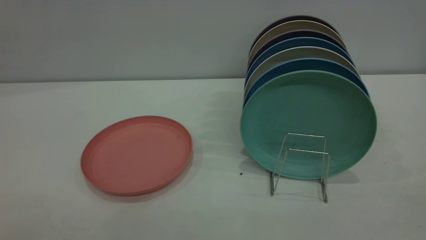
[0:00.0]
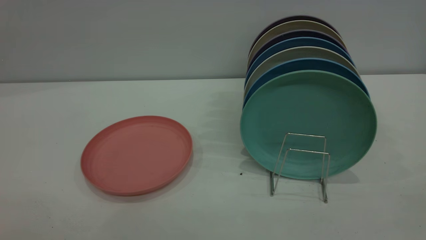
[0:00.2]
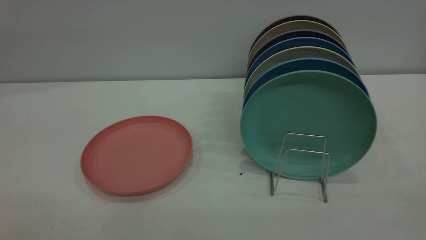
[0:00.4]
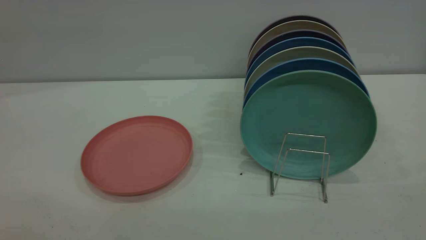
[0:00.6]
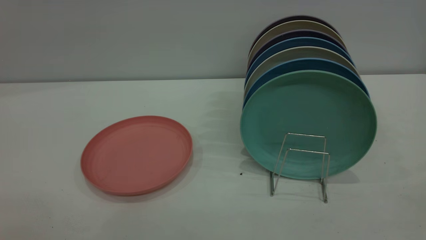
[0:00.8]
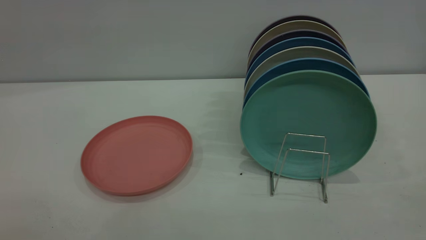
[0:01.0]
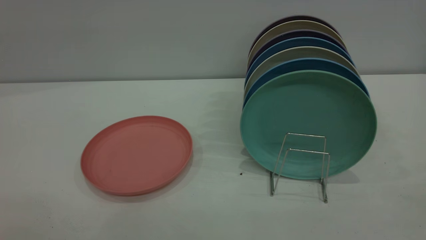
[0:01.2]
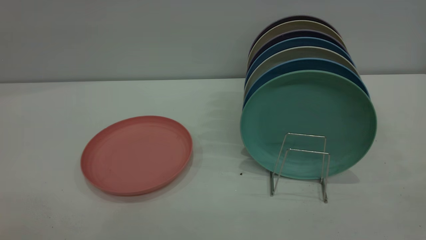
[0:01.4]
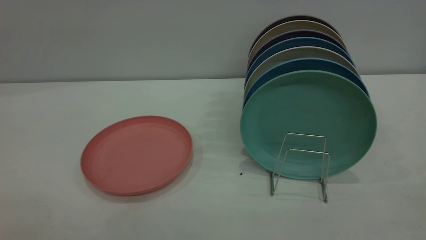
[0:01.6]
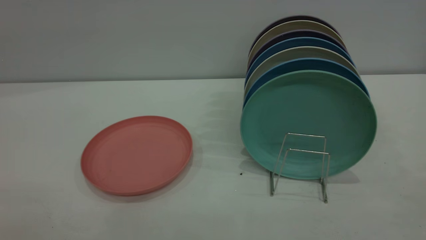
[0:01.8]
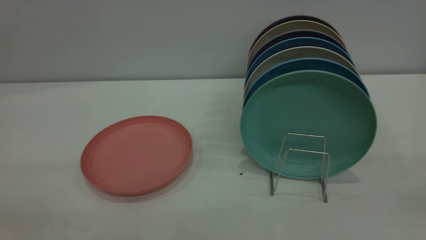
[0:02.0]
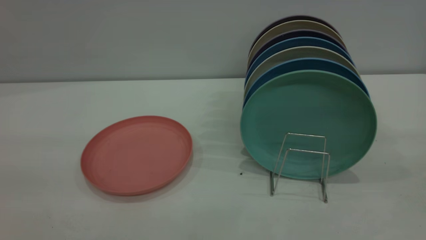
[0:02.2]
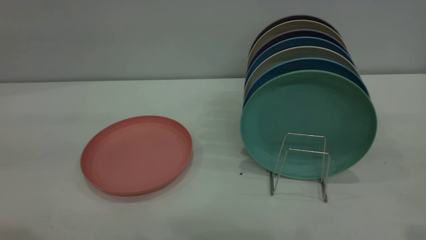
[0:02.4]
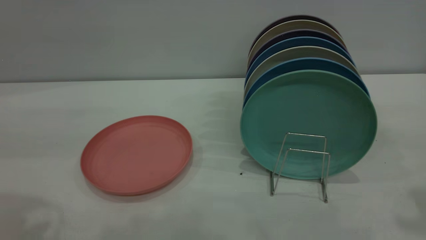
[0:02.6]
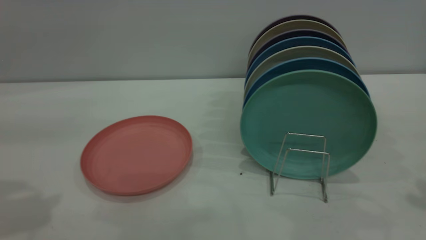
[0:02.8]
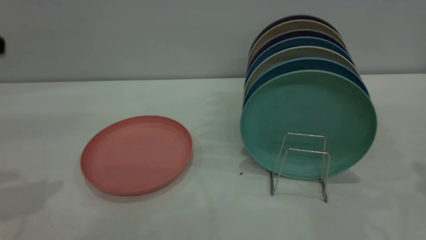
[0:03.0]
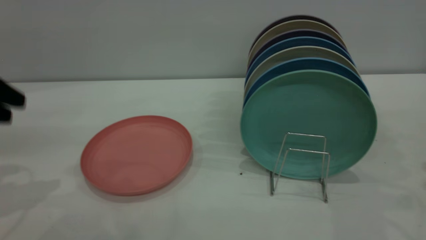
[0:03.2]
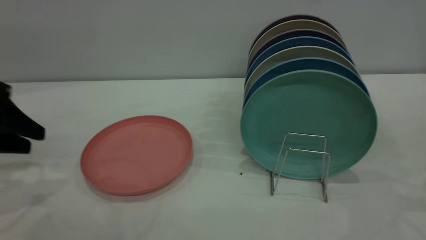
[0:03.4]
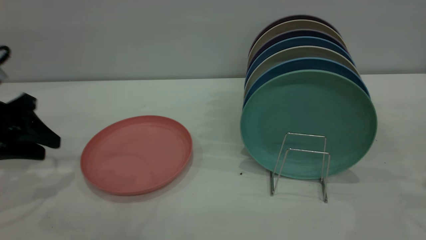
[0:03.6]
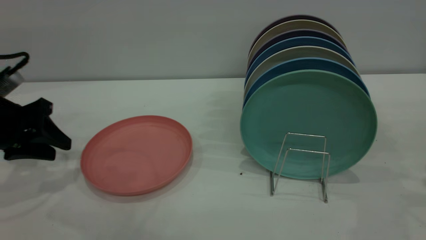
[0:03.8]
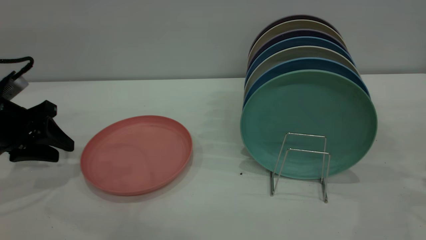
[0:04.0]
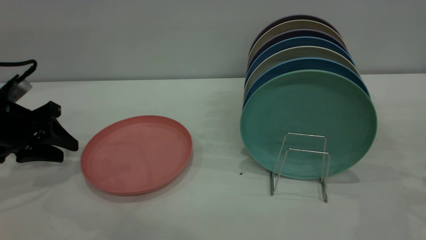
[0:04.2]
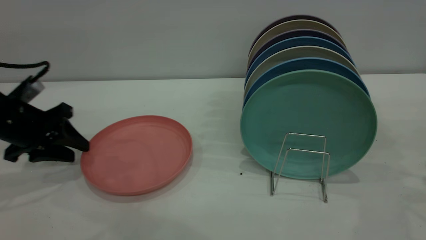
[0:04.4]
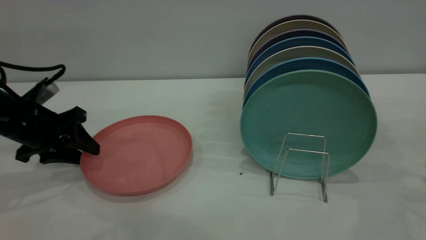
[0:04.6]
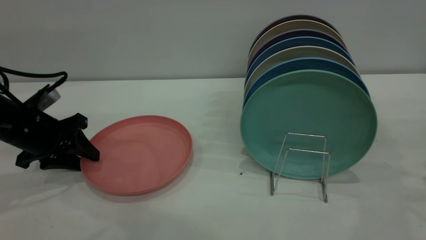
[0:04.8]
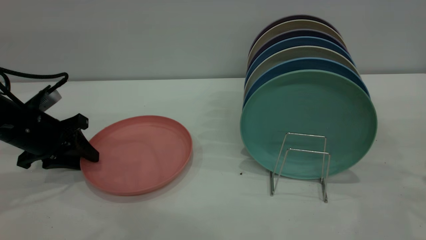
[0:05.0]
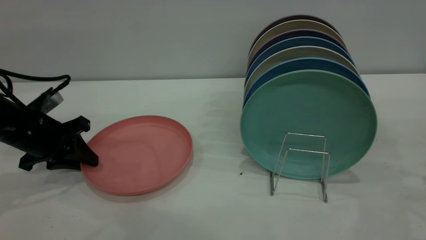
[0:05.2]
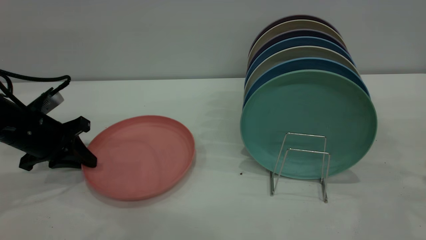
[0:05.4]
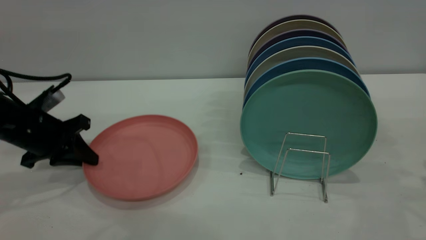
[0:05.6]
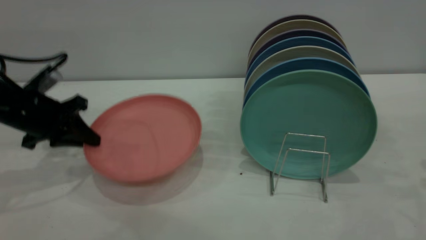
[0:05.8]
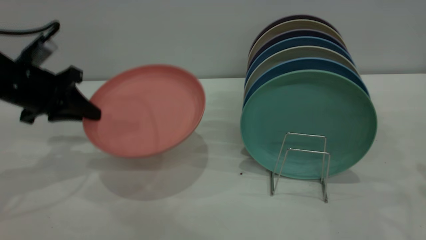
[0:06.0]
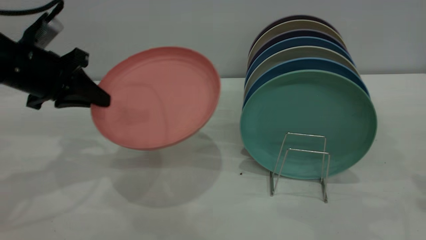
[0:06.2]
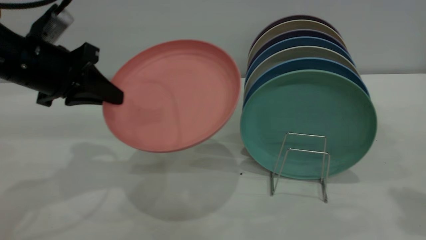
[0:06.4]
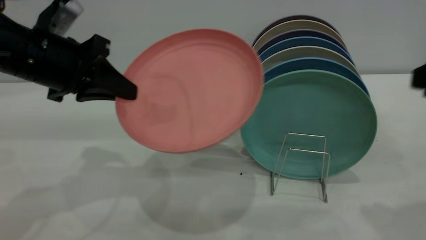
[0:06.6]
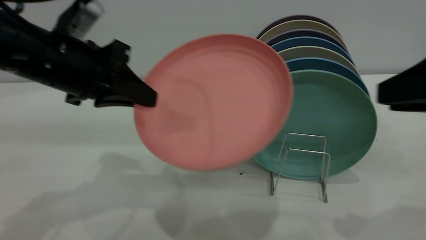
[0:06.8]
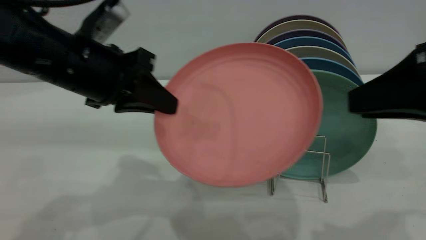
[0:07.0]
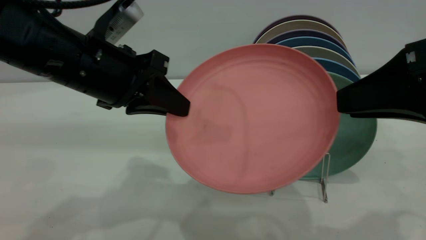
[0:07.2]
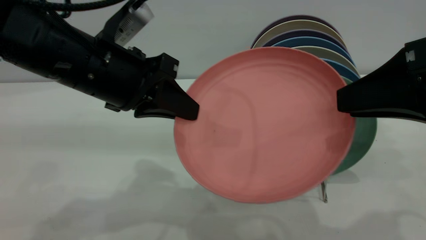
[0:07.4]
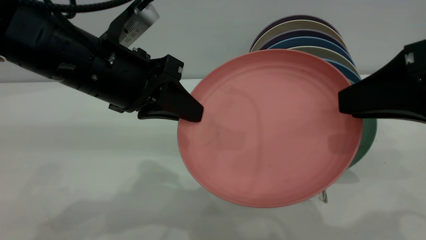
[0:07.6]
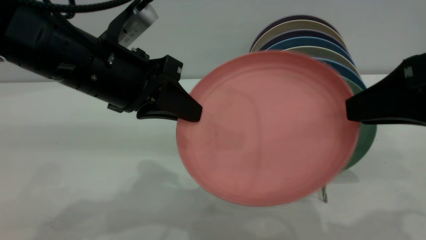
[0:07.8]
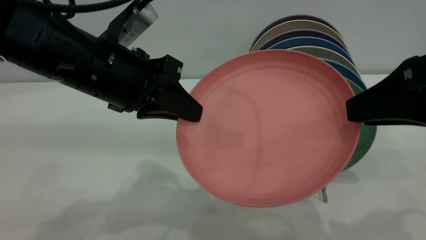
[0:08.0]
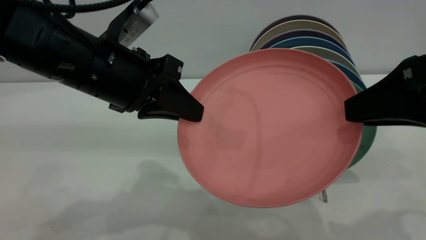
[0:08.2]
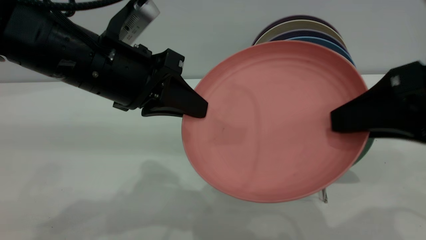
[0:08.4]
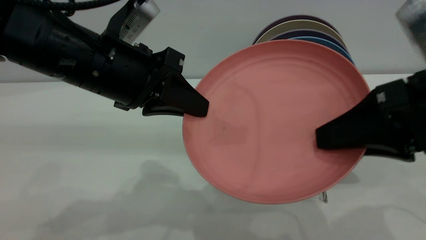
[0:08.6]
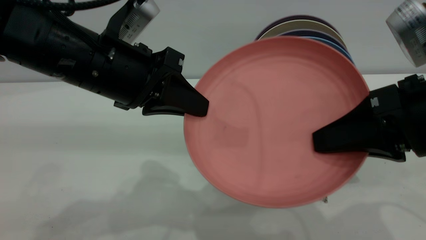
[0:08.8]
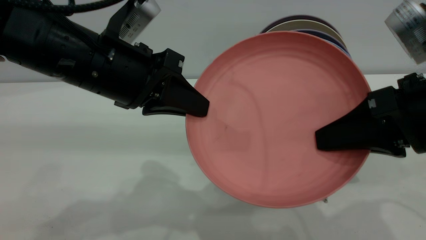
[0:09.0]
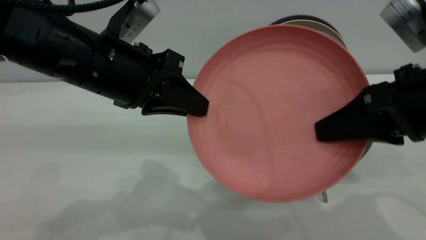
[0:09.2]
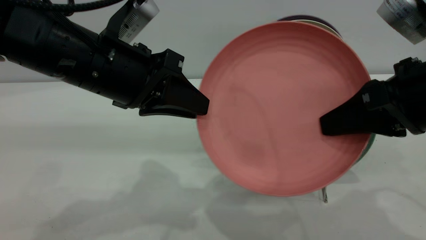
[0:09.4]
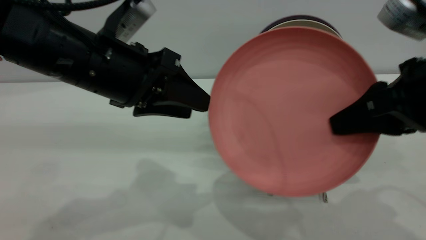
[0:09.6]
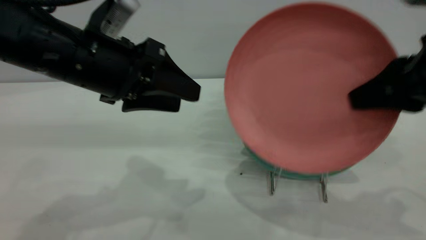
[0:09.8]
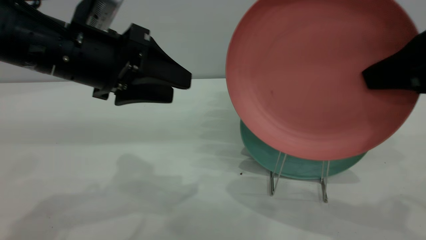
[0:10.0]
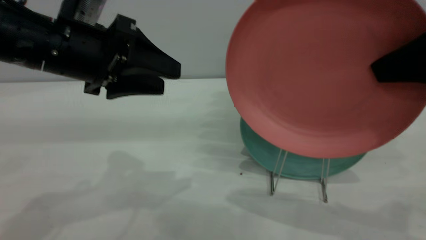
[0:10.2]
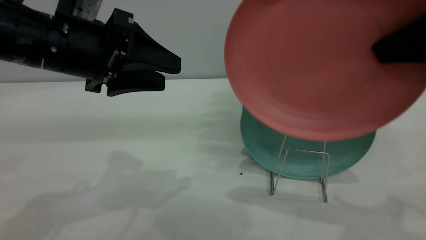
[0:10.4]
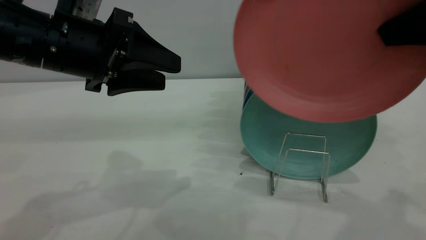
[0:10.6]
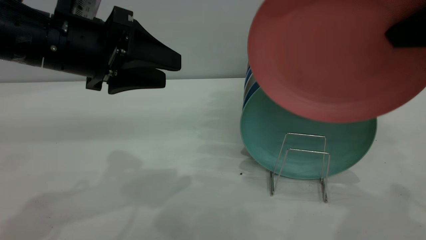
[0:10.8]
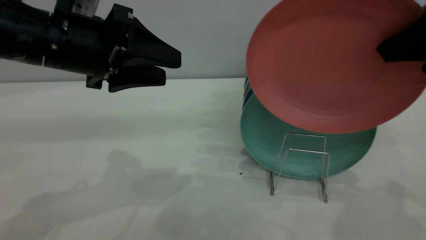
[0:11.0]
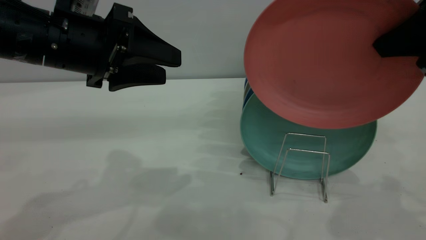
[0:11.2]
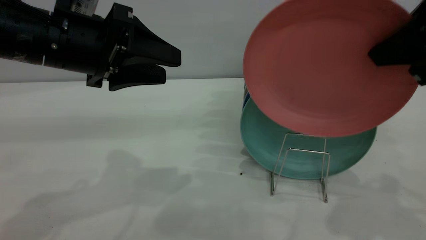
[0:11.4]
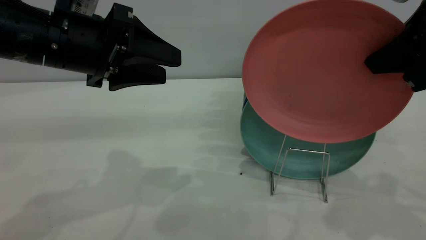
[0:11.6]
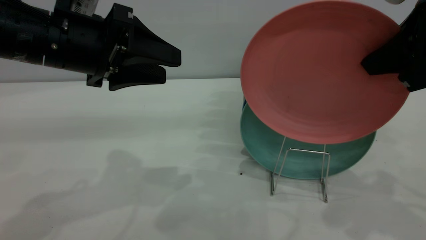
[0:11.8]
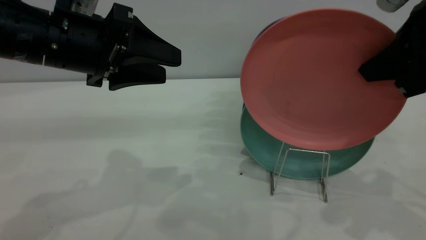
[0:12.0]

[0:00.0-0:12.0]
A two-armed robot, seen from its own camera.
Task of the whole recording: put the plate on the plate rack.
Step, 0:00.0 to 0:06.0: Pick up the plate with the left gripper.
Step, 0:06.2 to 0:09.6: Pass the plate from the left gripper to the right gripper.
0:00.0 to 0:01.6: Both grippers stay about where they are.
0:03.0 to 0:04.4: The left gripper goes approximately 20 cm downward and forward.
0:04.4 to 0:06.0: The left gripper goes some 5 cm upward, and closes its fingers. Meanwhile the right gripper shifts by roughly 5 cm.
0:06.0 to 0:07.6: The left gripper heads to the right and backward, covering roughly 20 cm. The right gripper heads to the left and backward, covering about 20 cm.
0:07.6 to 0:09.0: The right gripper ends up some 5 cm from where it was, and closes up.
0:09.0 to 0:10.4: The left gripper ends up some 5 cm from where it was, and opens. Meanwhile the right gripper shifts roughly 10 cm upward.
0:10.4 to 0:12.0: The right gripper goes approximately 5 cm forward.

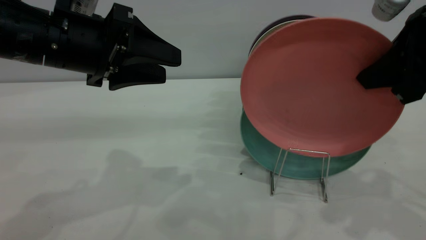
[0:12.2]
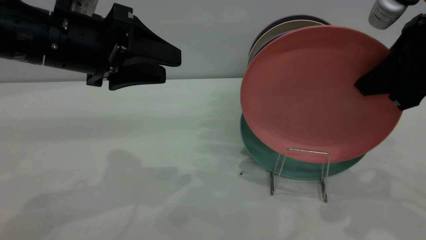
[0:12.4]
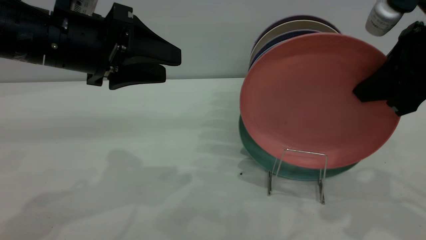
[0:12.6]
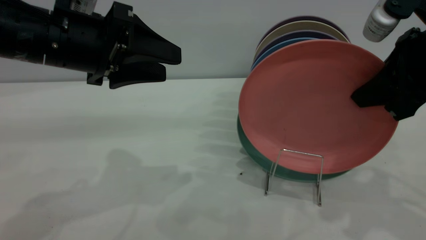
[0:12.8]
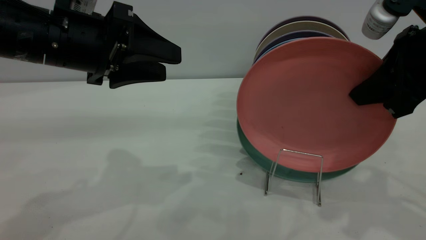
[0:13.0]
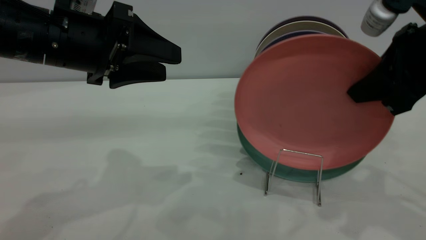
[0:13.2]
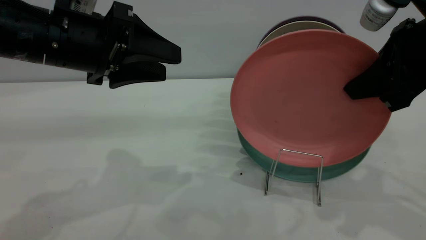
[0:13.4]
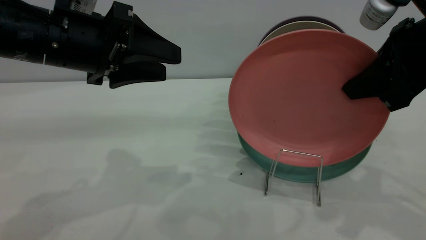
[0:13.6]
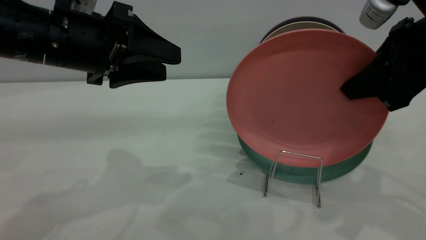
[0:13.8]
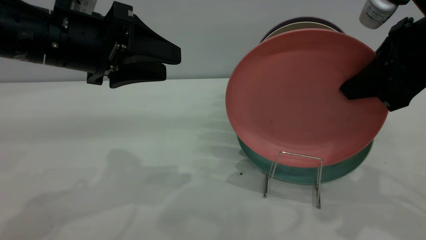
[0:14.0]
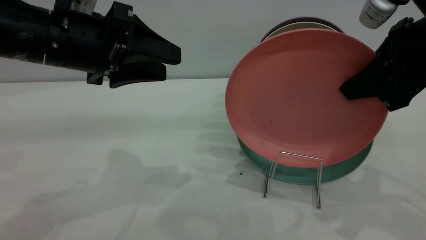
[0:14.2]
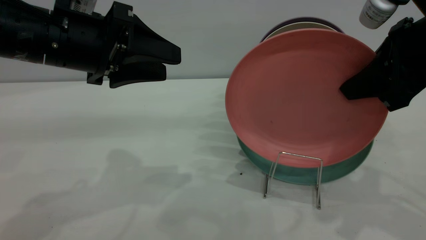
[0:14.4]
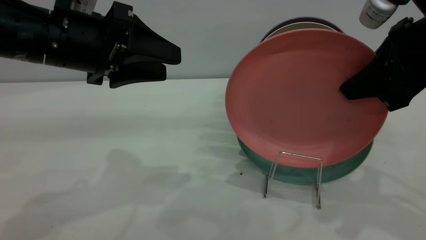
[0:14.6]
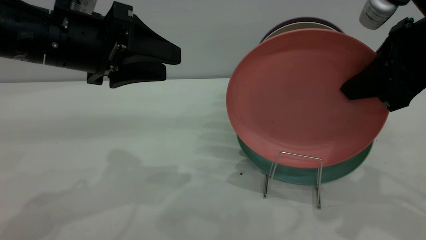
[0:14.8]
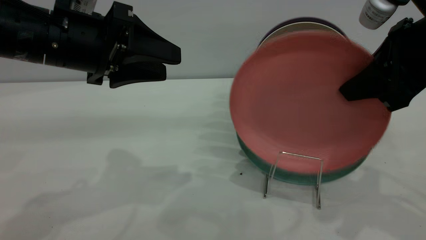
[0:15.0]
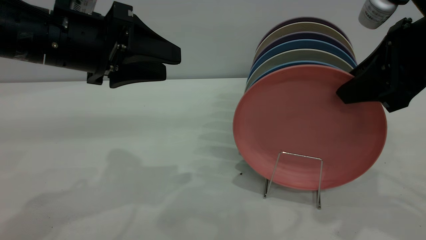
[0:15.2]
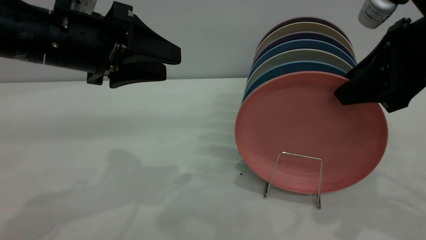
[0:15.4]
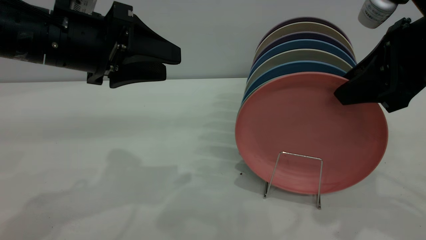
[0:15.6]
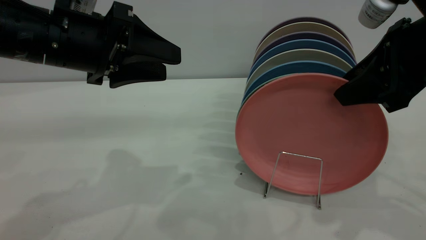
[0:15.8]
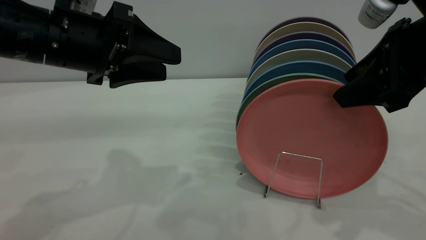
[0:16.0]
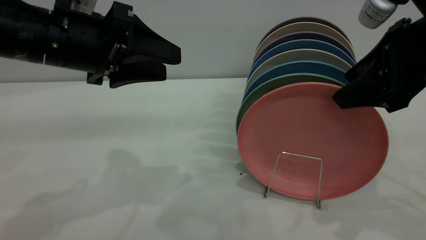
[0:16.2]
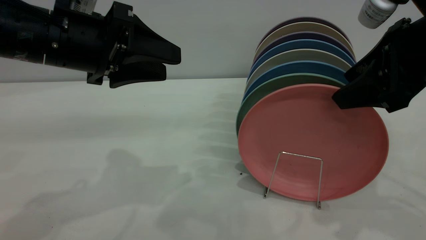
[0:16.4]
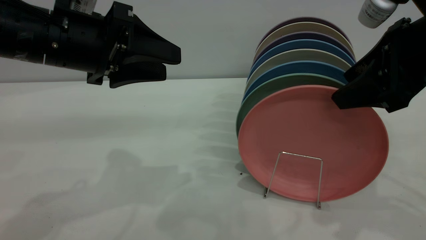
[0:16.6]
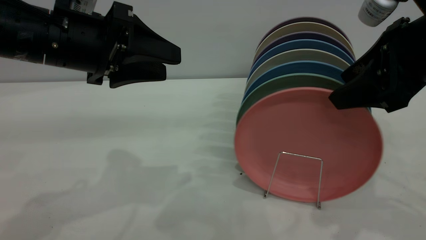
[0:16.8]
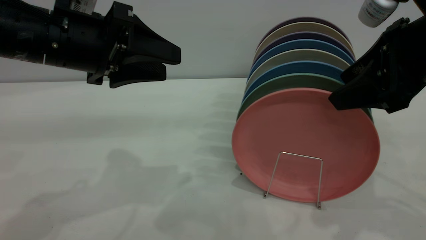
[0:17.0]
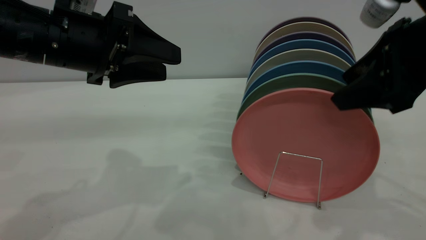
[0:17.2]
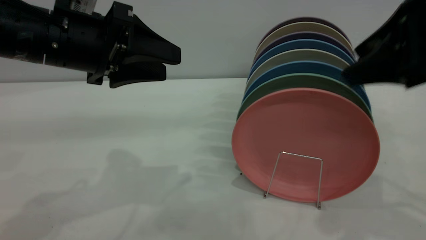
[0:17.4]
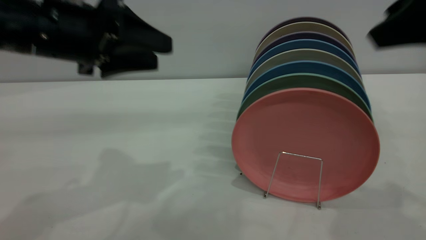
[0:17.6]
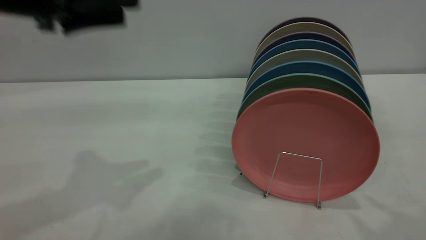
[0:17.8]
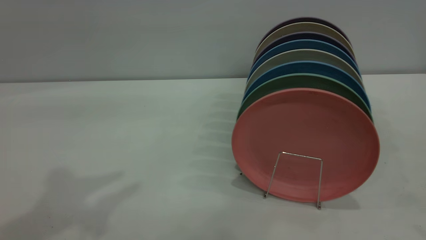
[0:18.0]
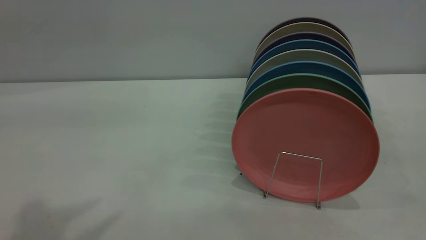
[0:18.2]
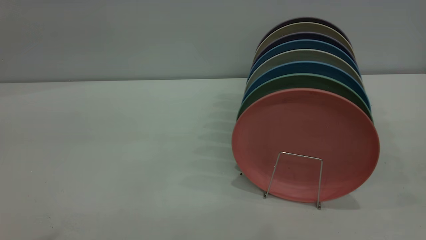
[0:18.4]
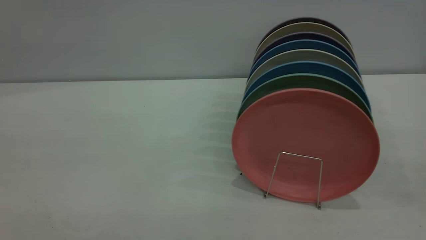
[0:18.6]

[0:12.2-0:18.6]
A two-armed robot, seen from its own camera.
Task of the whole recording: put the plate on the plate rack.
Step, 0:12.2 to 0:17.4: Place the plate on the shelf.
0:12.2 to 0:13.8: The grippers stay close to where they were, moving slightly.
0:13.8 to 0:15.4: The right gripper opens its fingers.
0:15.4 to 0:17.0: The right gripper opens up.
0:17.0 to 0:18.6: Both grippers travel together backward and upward, roughly 30 cm.
